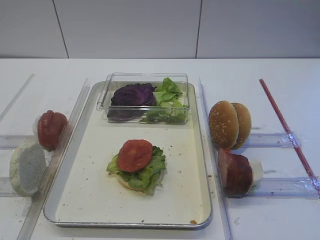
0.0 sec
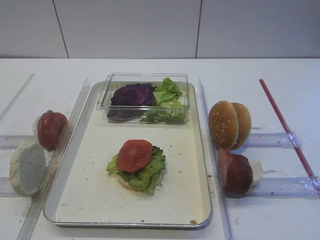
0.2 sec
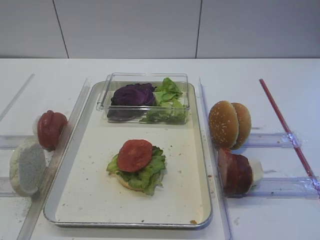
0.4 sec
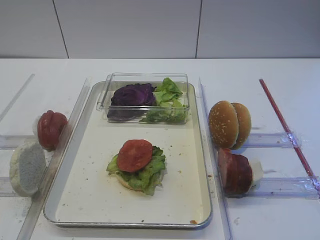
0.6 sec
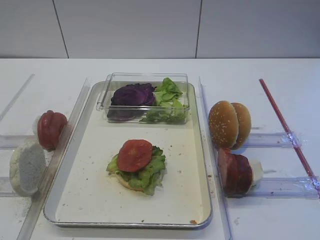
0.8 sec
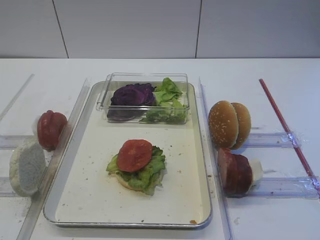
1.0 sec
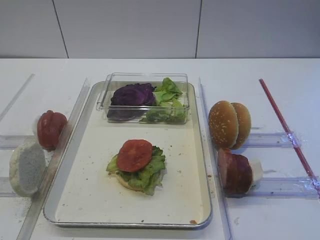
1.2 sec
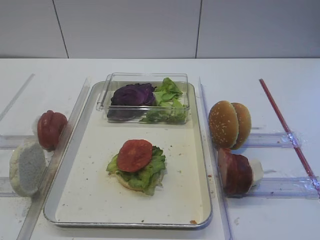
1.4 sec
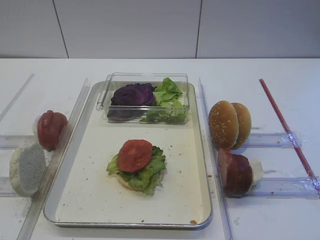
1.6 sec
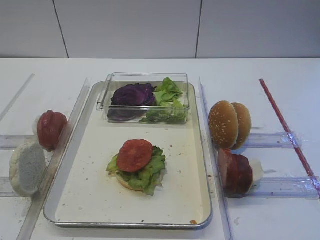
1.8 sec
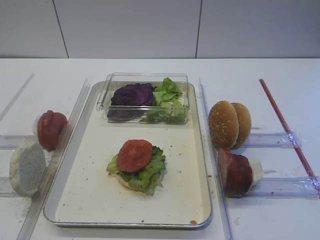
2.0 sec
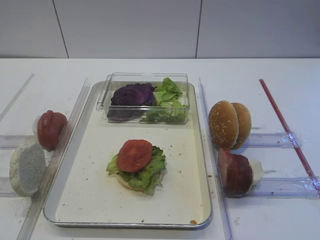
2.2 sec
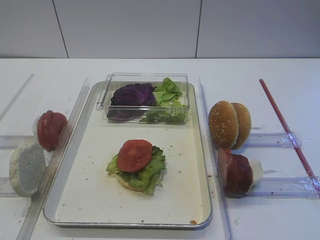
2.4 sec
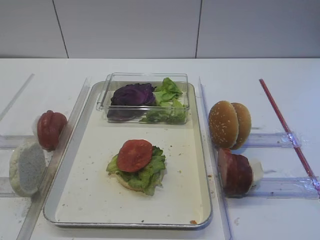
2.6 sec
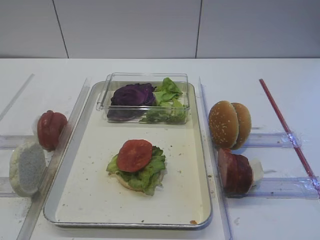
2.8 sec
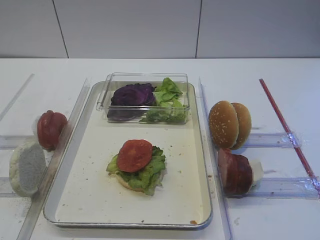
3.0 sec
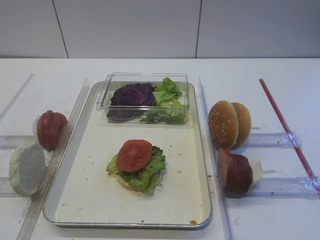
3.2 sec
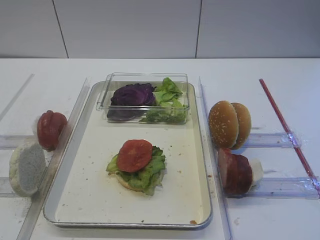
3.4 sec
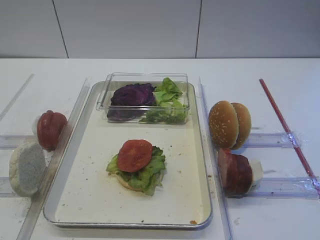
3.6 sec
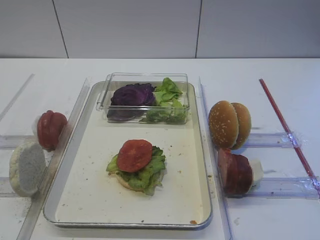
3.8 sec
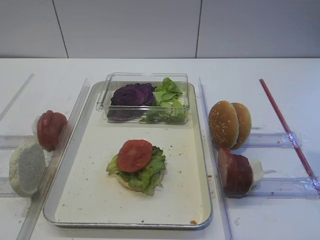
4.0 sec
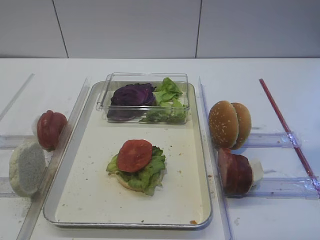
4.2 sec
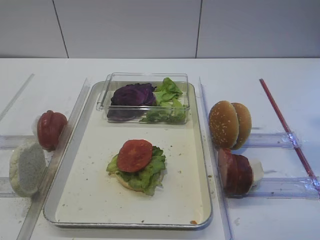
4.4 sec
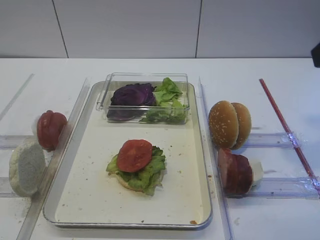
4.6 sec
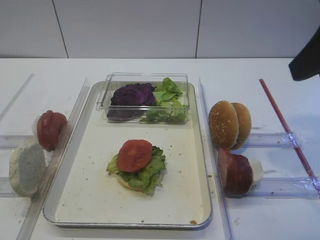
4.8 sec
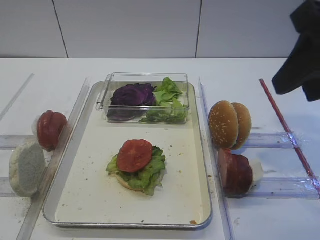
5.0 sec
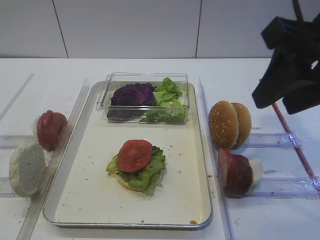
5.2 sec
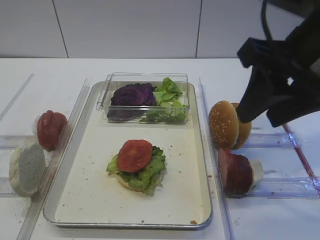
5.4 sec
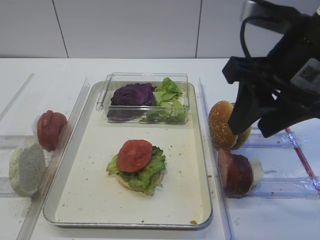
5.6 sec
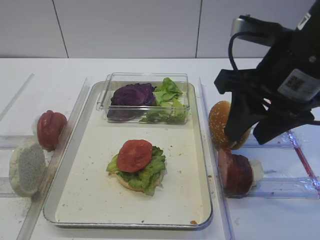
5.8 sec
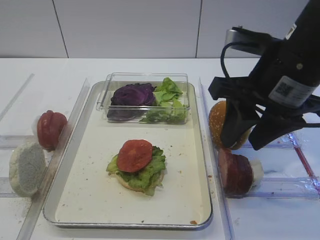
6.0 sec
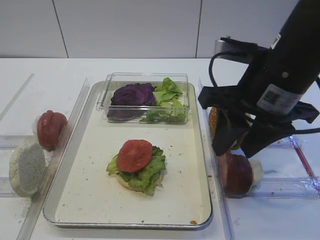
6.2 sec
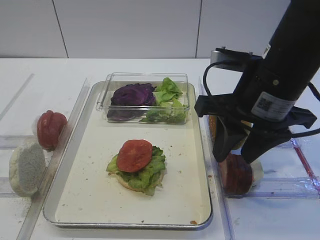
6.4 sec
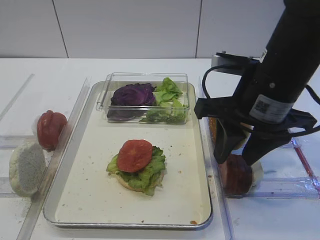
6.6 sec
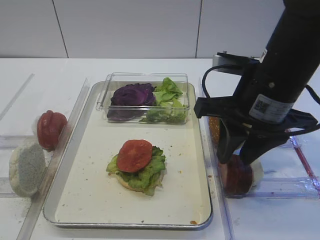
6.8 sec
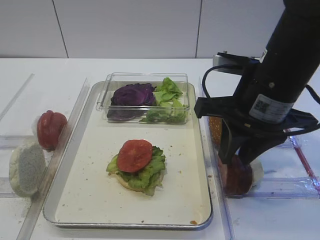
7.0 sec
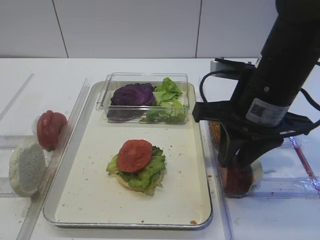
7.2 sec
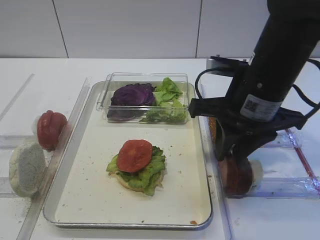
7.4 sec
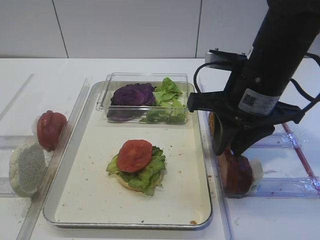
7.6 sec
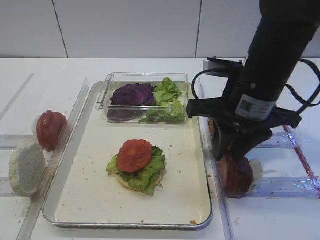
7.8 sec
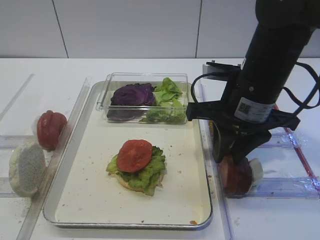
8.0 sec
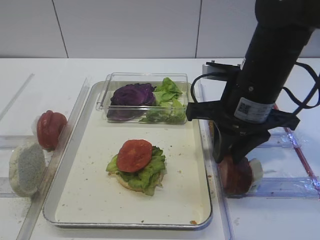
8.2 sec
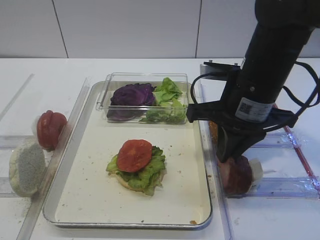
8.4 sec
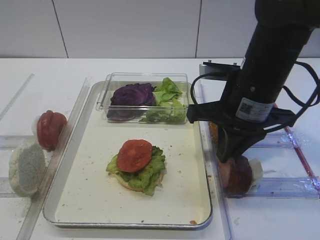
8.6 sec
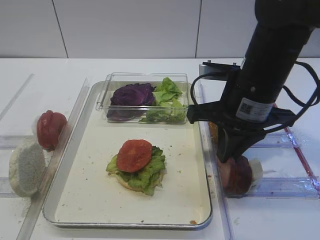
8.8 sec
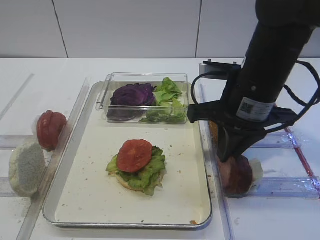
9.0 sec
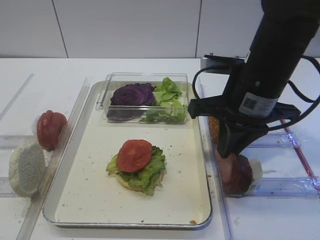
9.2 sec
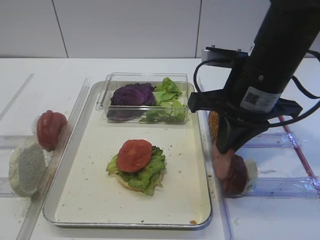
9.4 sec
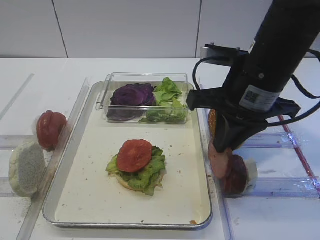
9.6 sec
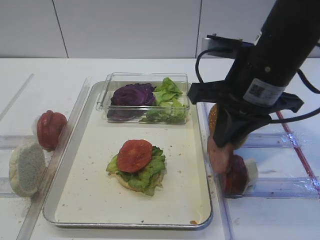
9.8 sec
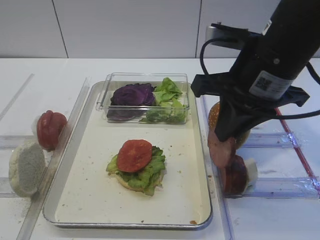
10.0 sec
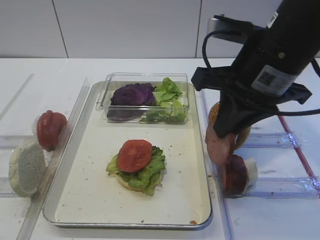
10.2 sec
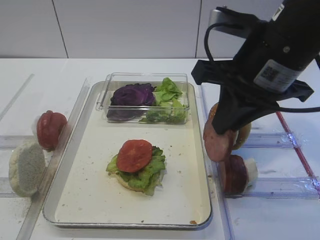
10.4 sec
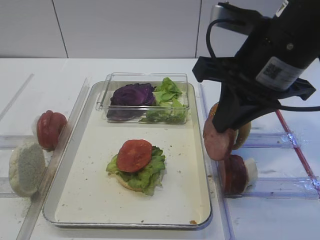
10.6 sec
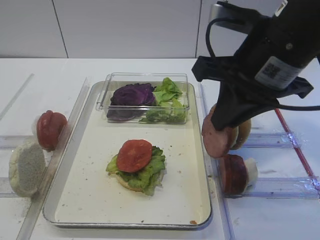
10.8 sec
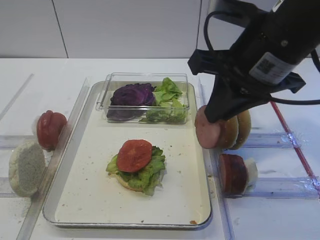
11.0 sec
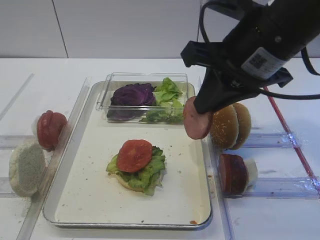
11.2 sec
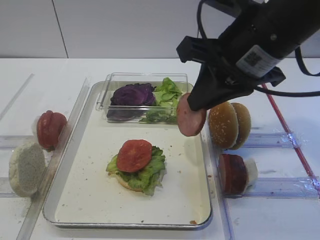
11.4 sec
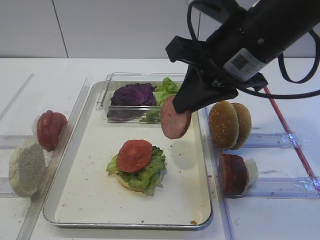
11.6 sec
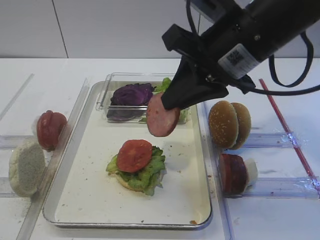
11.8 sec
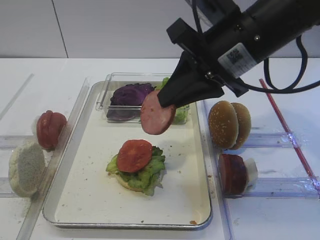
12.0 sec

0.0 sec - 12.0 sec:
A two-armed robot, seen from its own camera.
Step, 0.0 sec - 9.8 sec: Pick up the cutlet with the right gripper.
4.4 sec - 6.0 sec: The right gripper heads downward, to the left and forward, covering about 15 cm.
6.0 sec - 7.6 sec: The grippers make only small movements.
7.6 sec - 9.0 sec: The right gripper closes its fingers.
9.0 sec - 10.4 sec: The right gripper shifts roughly 5 cm upward.

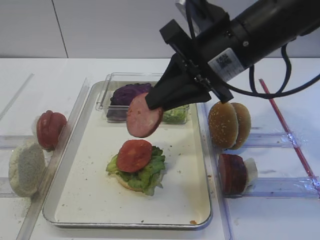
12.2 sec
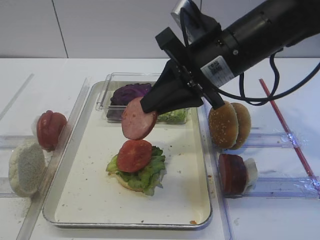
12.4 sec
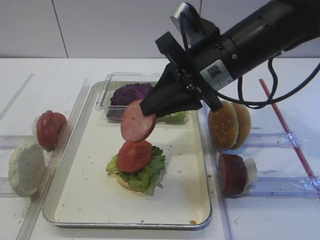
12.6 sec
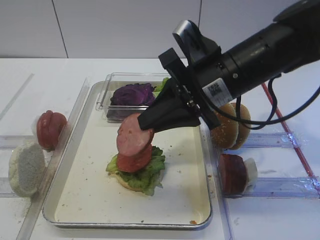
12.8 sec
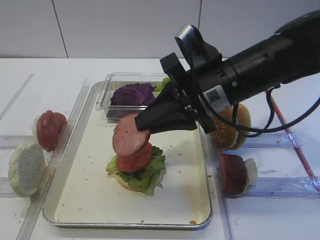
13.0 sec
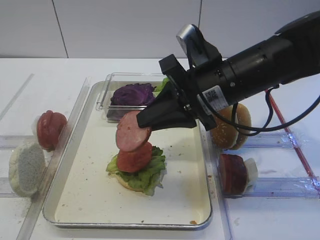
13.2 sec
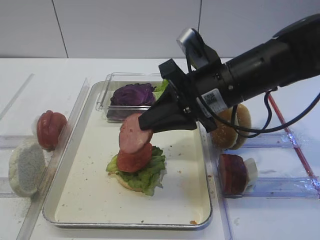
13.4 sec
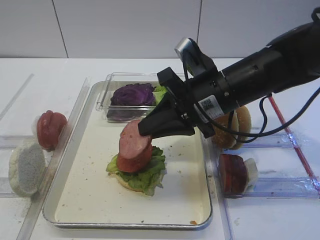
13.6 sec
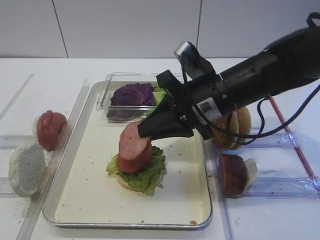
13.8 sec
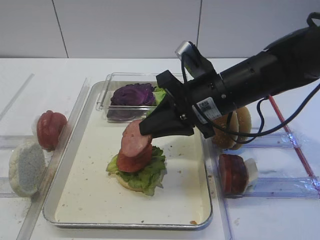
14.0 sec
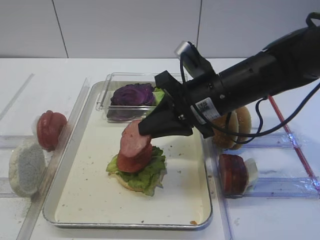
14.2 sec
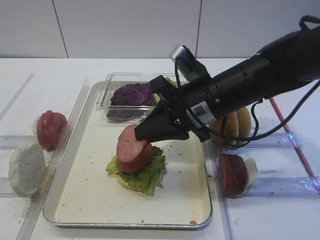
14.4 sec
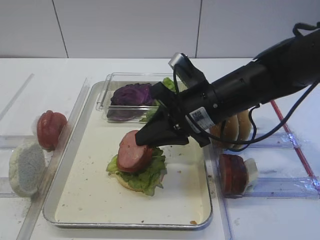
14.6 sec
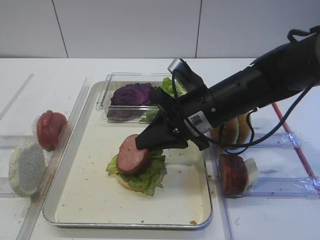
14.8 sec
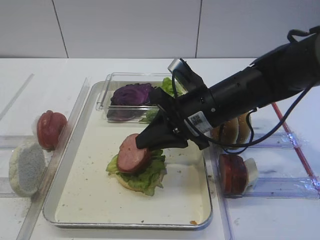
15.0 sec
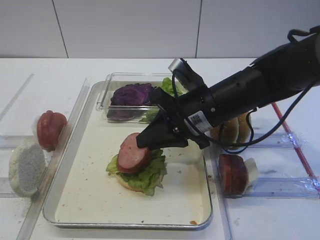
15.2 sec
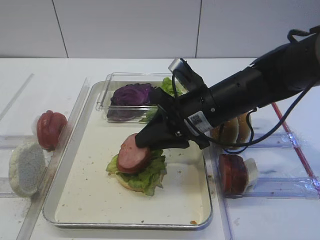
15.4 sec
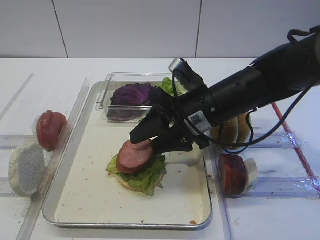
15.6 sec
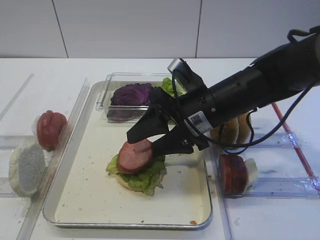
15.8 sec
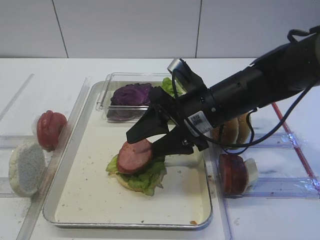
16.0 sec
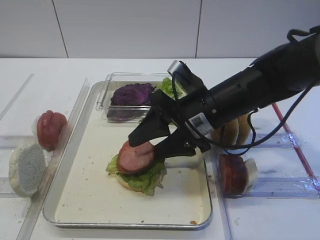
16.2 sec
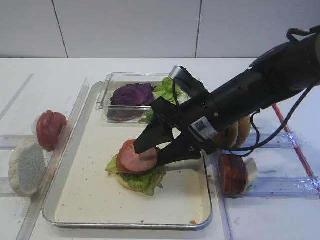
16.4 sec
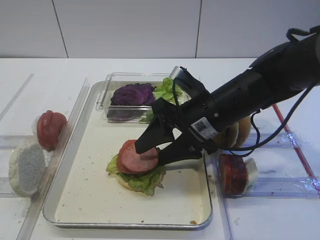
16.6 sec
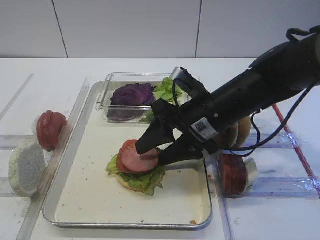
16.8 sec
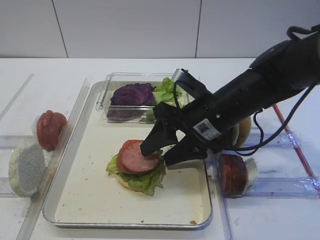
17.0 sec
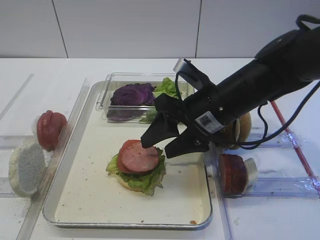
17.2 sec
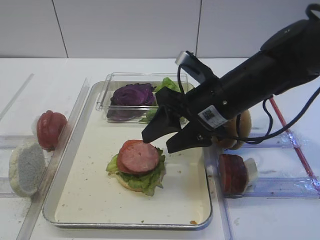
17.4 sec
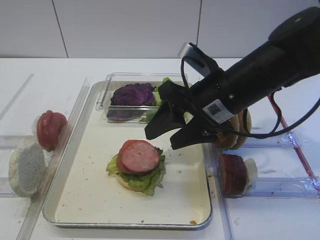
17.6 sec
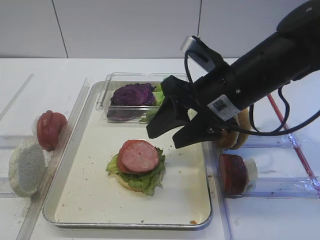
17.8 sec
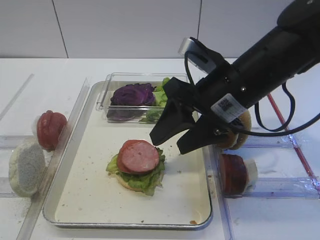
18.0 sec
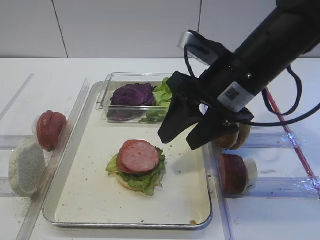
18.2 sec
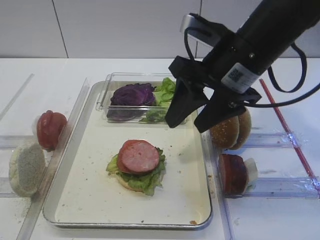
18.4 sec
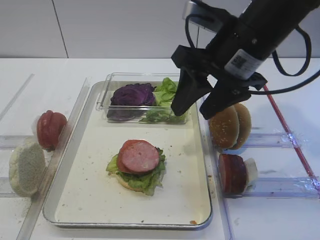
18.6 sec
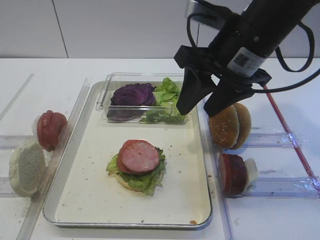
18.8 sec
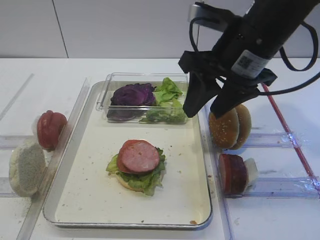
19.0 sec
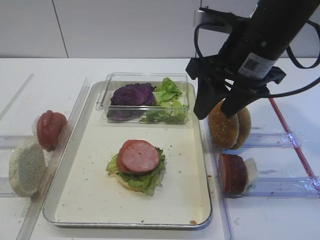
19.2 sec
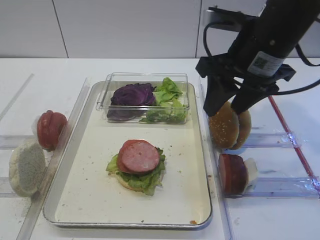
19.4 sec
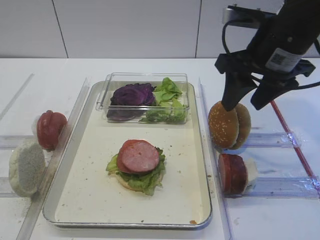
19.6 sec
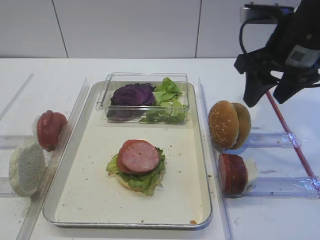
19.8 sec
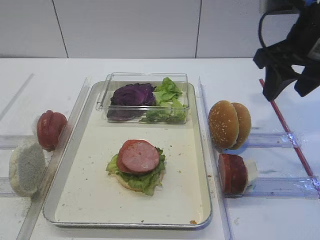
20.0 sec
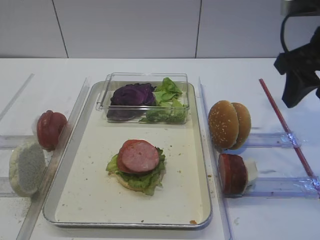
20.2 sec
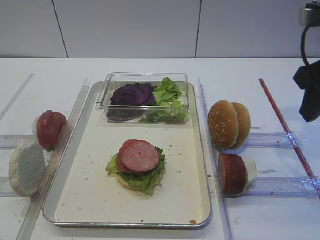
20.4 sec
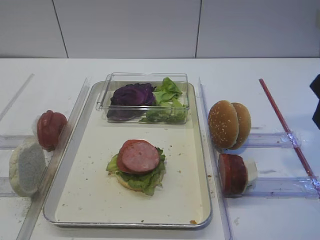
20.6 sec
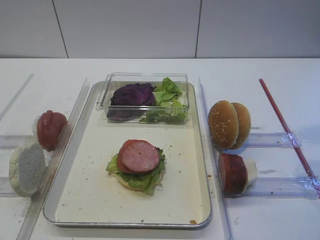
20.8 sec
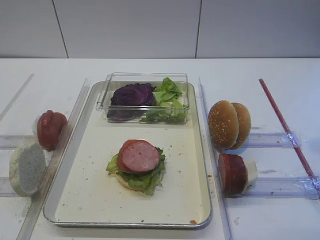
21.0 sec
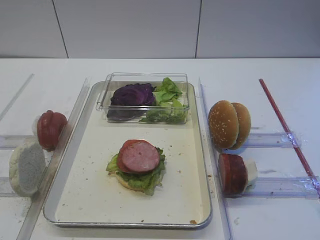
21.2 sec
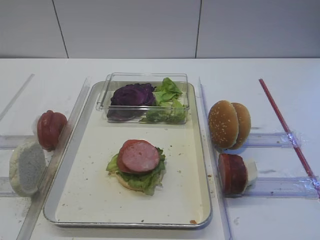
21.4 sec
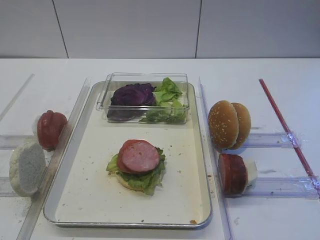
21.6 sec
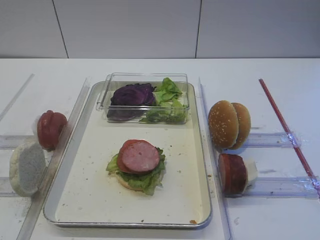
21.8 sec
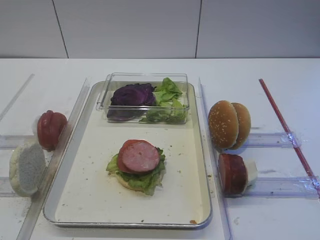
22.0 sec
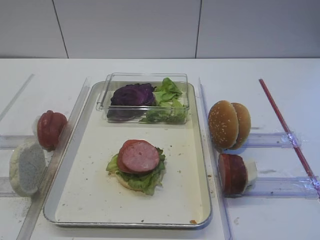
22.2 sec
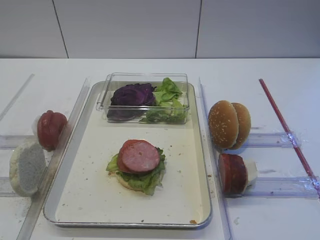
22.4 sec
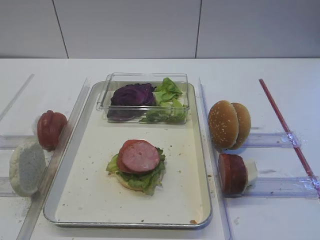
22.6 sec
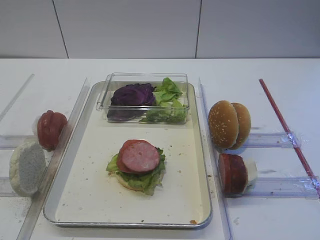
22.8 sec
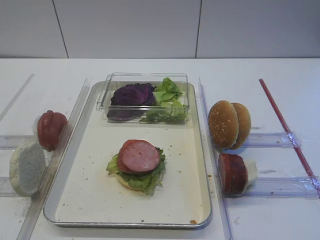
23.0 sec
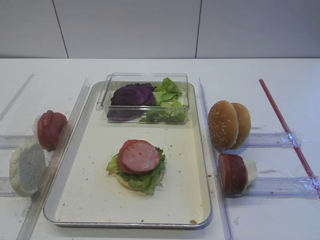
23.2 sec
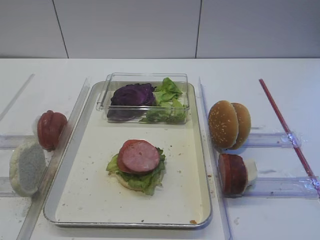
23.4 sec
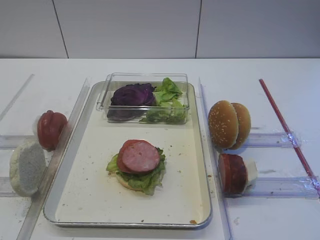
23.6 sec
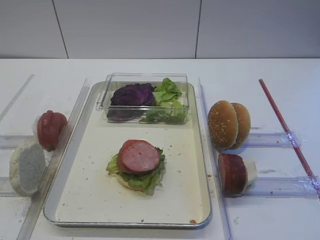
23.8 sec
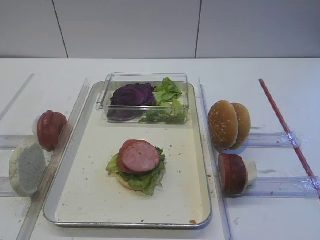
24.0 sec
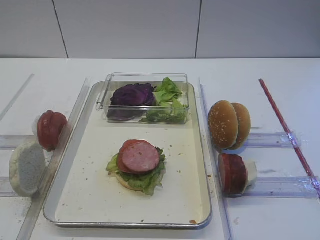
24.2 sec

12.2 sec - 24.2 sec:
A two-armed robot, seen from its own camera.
Step, 12.2 sec - 17.4 sec: Place the cutlet on the tomato slice with the right gripper.
12.2 sec - 13.8 sec: The right gripper travels downward by about 10 cm.
13.8 sec - 15.2 sec: The grippers move only a little.
15.2 sec - 16.6 sec: The right gripper opens up.
16.6 sec - 18.2 sec: The right gripper is displaced upward by approximately 10 cm.
18.2 sec - 19.8 sec: The right gripper shifts roughly 10 cm to the right.
19.8 sec - 21.2 sec: The right gripper goes about 20 cm backward.
